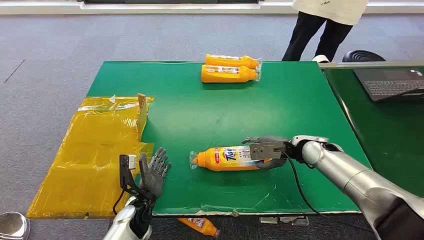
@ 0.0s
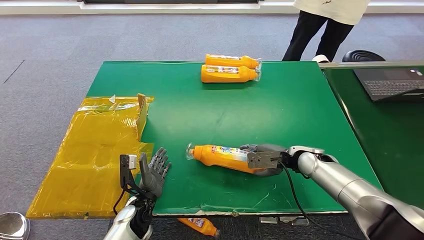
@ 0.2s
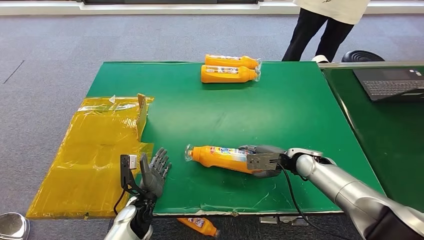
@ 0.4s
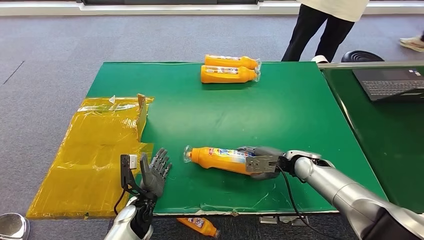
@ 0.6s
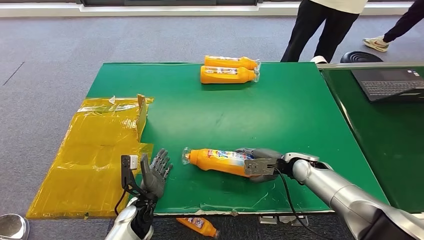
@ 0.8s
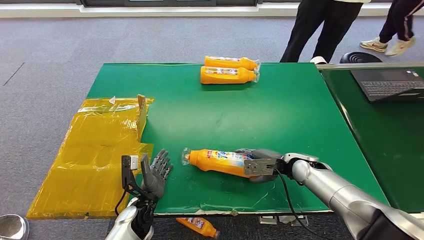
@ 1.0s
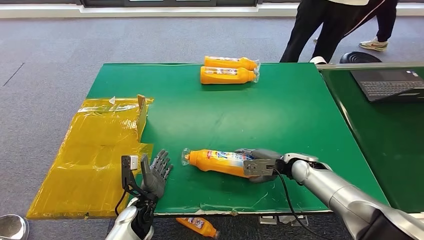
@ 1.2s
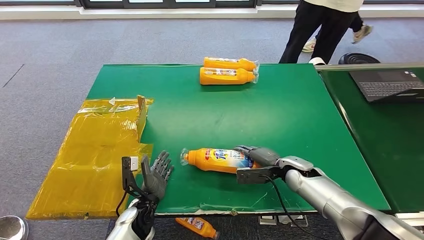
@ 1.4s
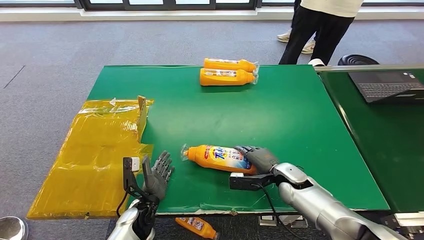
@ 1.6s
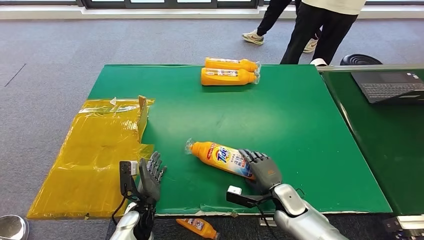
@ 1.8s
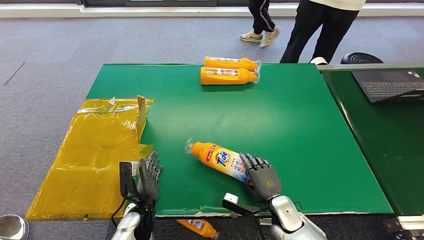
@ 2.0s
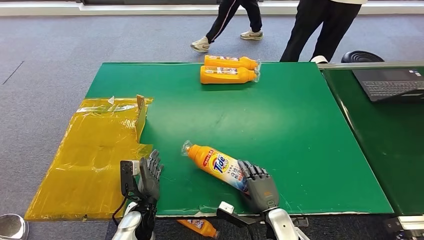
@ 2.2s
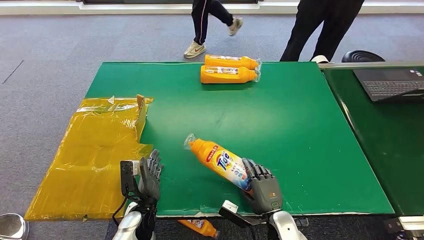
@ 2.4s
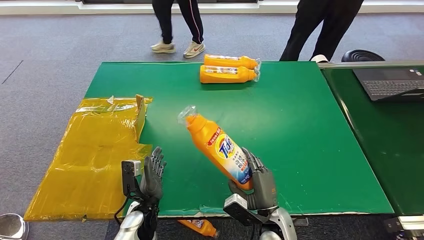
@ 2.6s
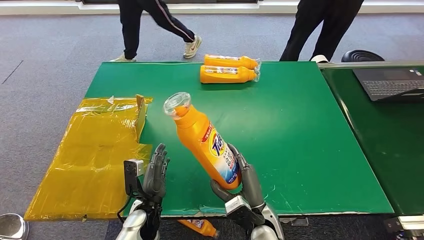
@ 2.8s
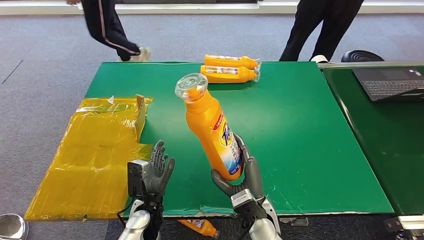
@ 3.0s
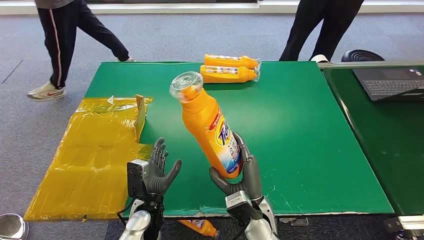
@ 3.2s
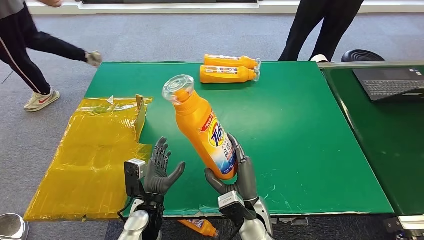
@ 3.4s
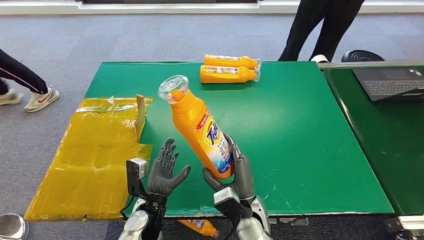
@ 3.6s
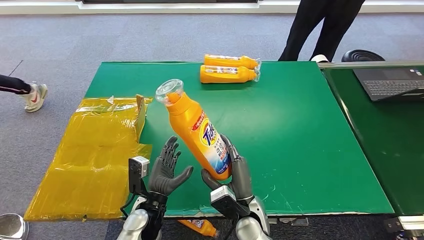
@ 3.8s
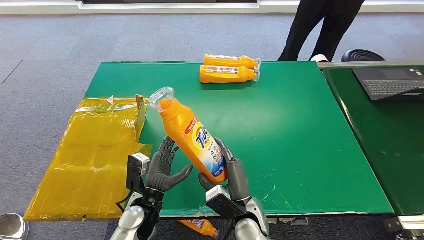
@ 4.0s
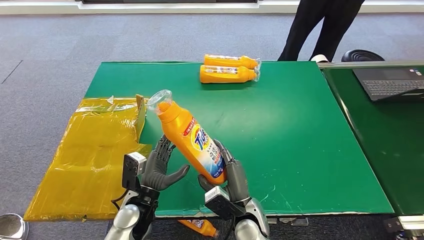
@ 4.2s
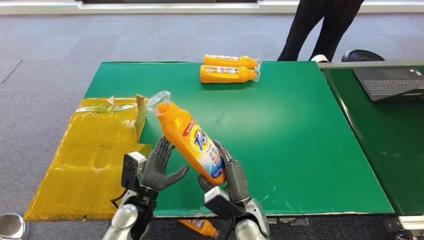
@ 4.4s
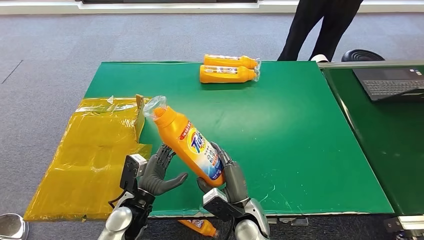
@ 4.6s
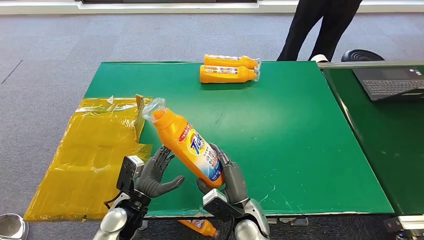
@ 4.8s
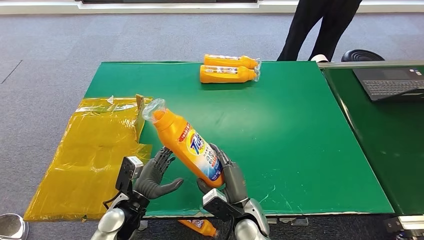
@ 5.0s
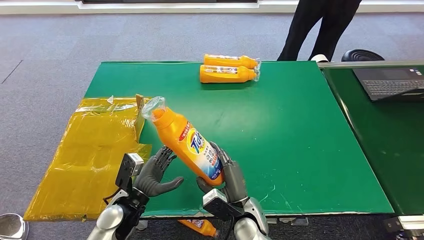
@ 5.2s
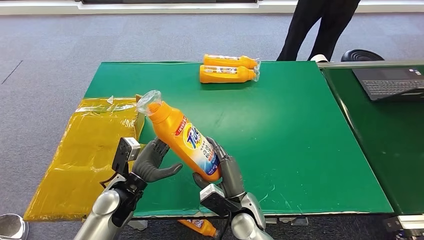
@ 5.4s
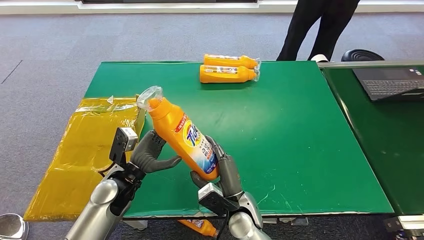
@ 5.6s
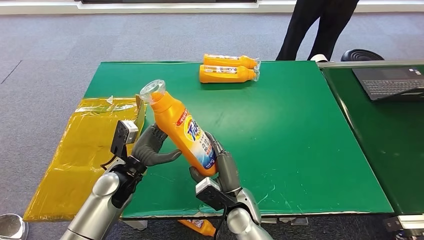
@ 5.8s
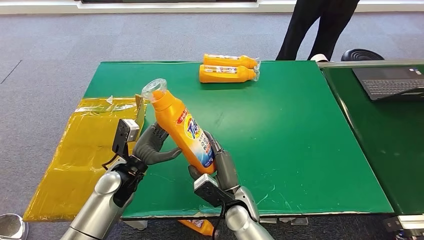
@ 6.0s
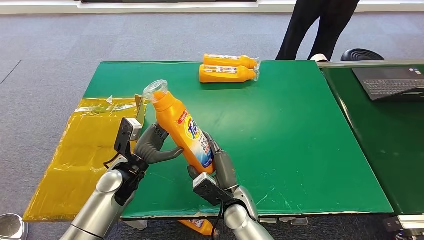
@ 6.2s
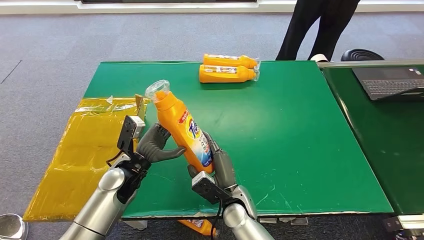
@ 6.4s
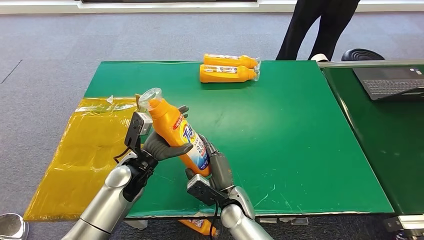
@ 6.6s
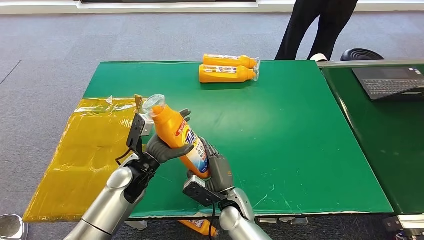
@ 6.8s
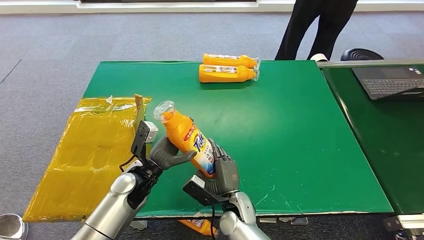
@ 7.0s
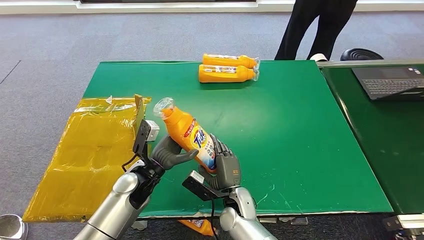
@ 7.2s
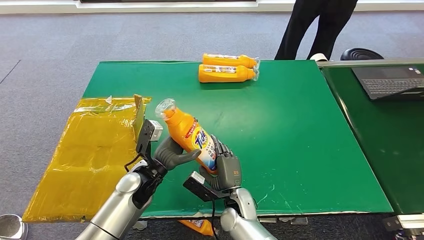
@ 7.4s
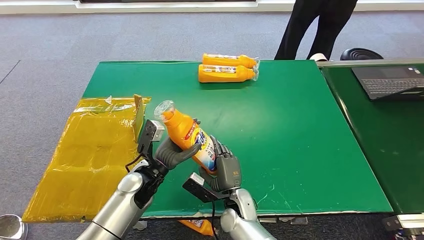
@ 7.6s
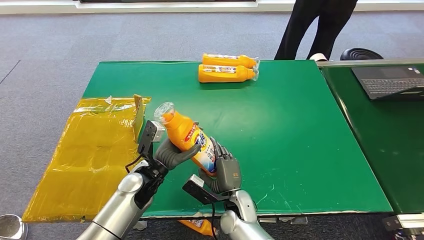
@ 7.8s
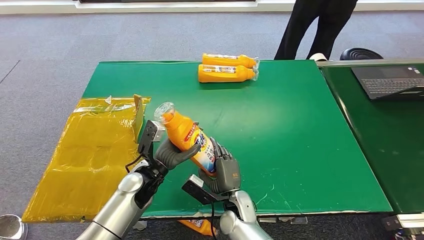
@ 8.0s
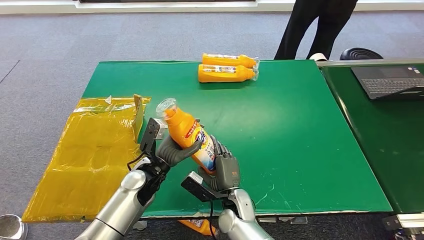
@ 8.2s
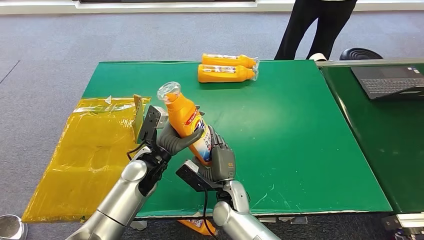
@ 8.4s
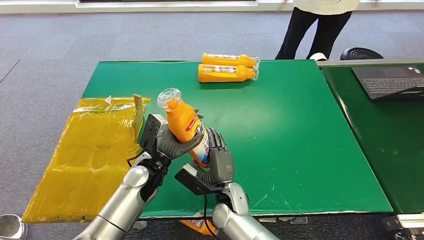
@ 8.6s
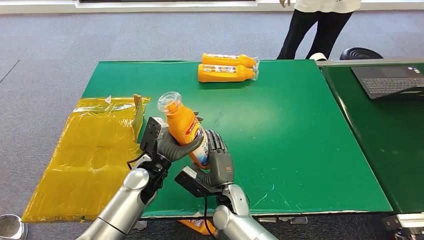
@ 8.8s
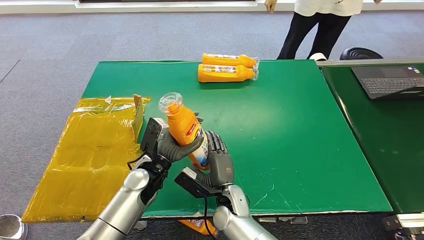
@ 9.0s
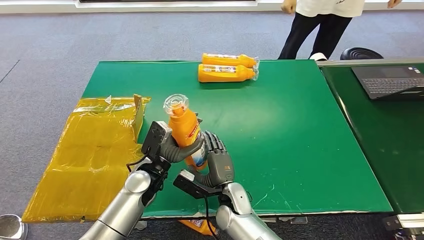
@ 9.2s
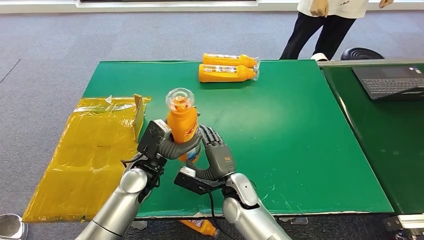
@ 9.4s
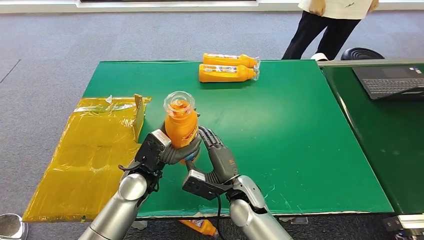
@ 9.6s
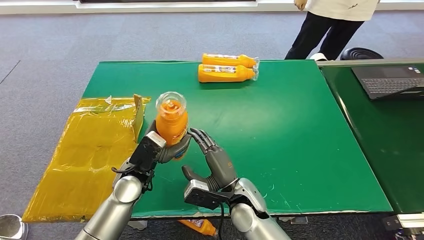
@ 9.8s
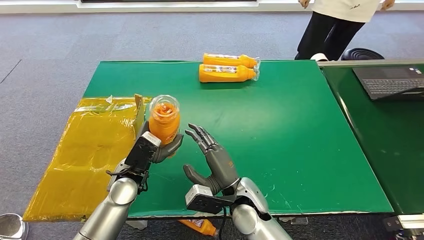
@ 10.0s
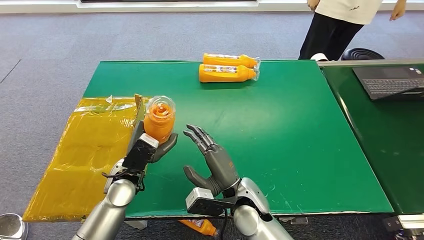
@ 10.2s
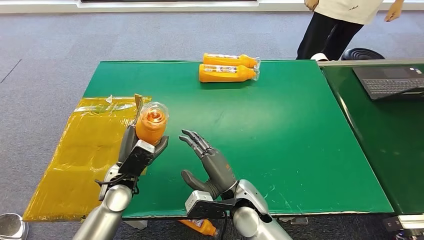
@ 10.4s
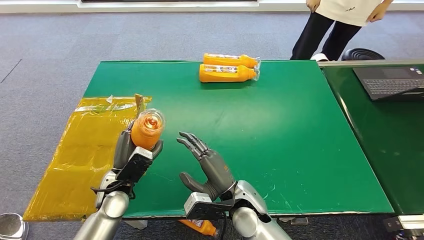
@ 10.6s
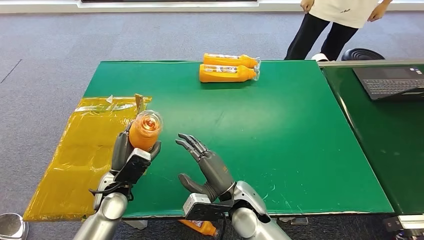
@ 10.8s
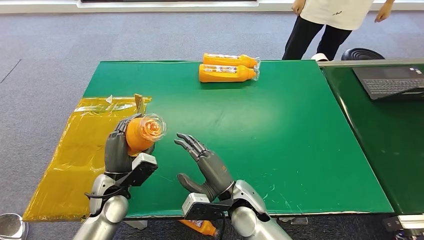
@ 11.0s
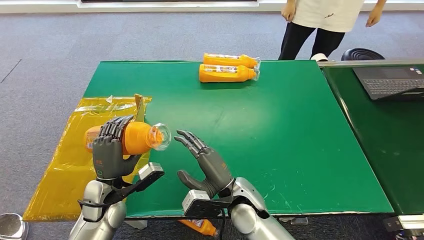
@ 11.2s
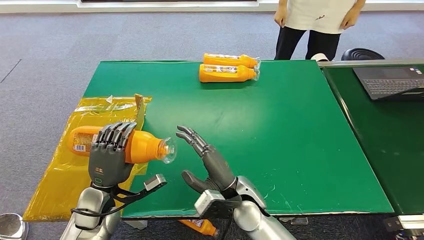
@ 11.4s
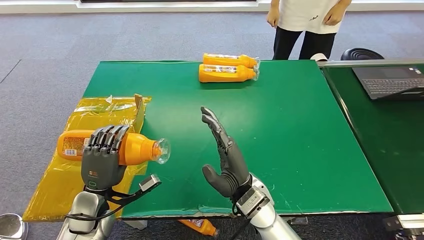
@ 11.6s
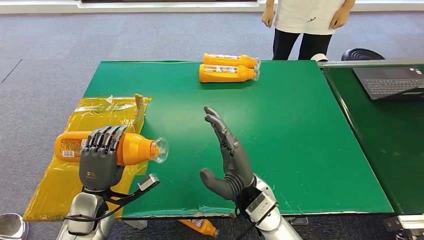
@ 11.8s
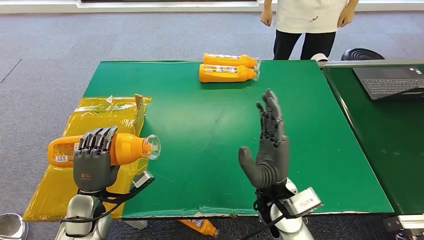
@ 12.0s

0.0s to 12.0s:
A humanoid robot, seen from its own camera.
Step, 0.0s to 3.0s: Pick up the bottle from the table.
Step, 3.4s to 12.0s: Turn the bottle to the front side.
3.0s to 4.4s: The hands make only small movements.
4.4s to 6.0s: The left hand travels forward by about 5 cm.
6.0s to 7.6s: The left hand heads to the right, covering about 5 cm.
7.6s to 9.0s: There are only small adjustments of the hands.
9.0s to 10.4s: The right hand shifts about 10 cm upward. The left hand goes approximately 10 cm to the left.

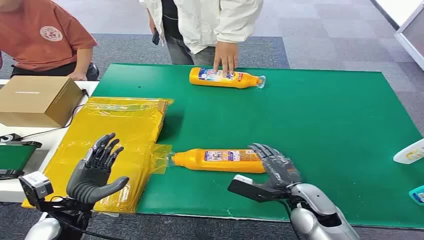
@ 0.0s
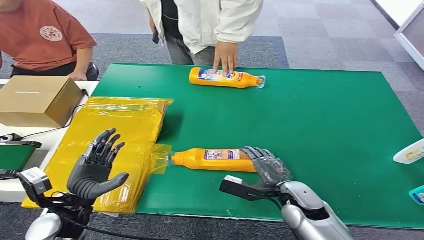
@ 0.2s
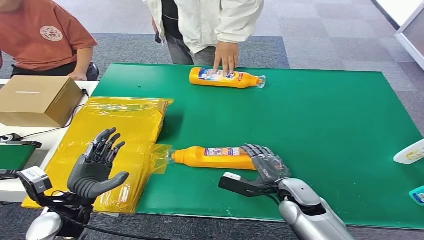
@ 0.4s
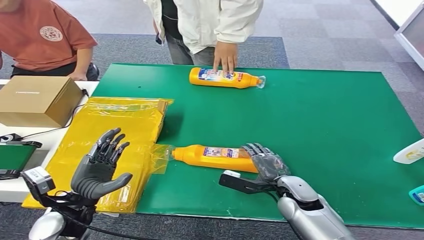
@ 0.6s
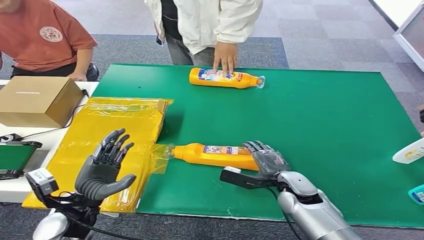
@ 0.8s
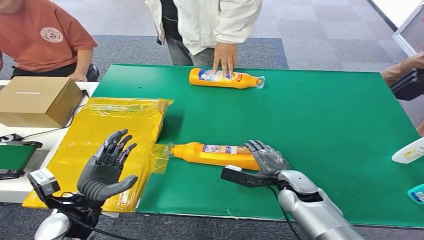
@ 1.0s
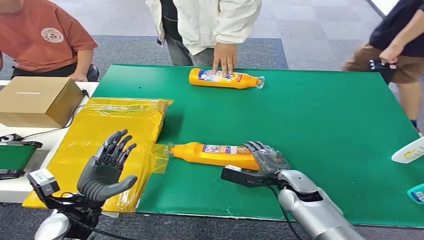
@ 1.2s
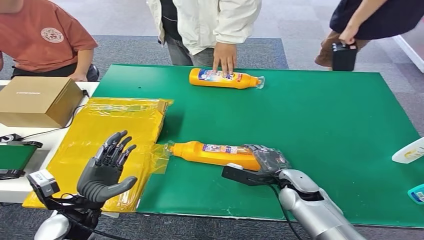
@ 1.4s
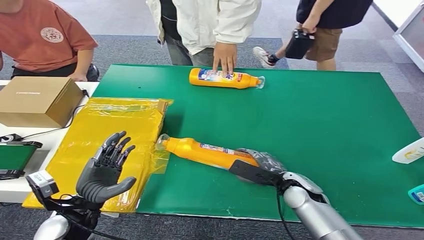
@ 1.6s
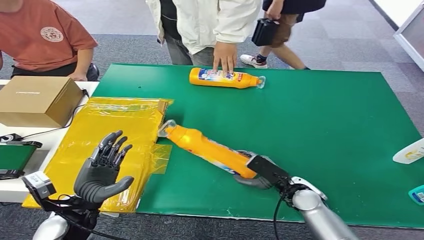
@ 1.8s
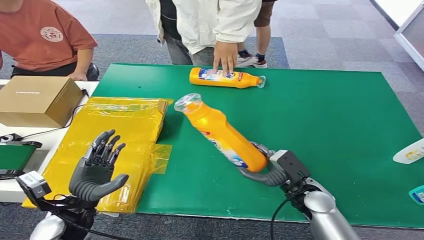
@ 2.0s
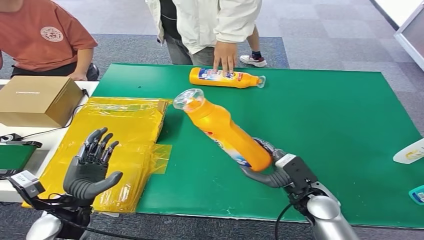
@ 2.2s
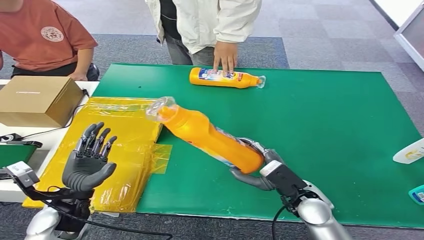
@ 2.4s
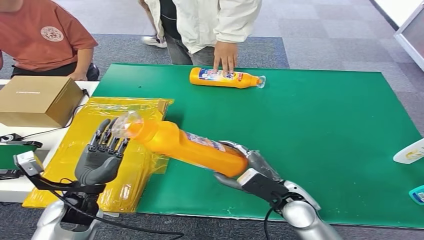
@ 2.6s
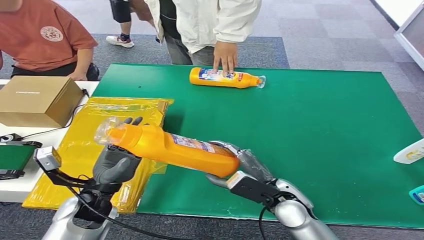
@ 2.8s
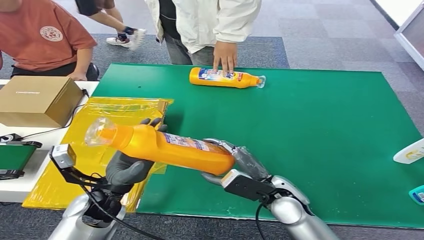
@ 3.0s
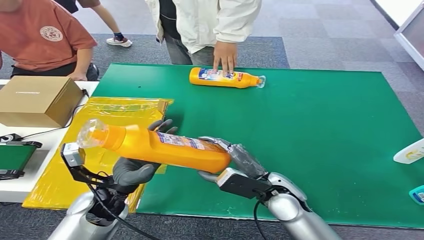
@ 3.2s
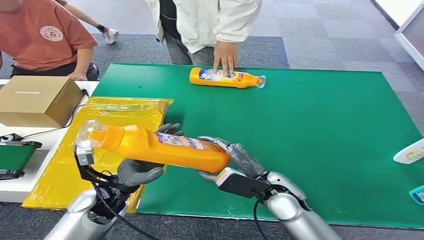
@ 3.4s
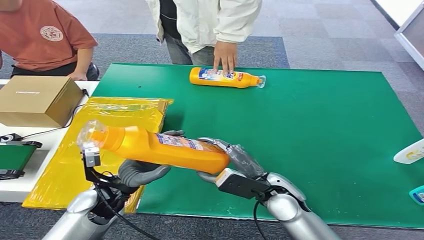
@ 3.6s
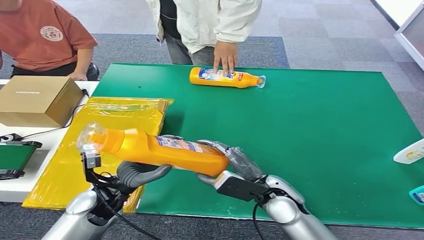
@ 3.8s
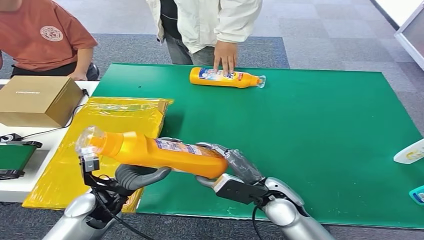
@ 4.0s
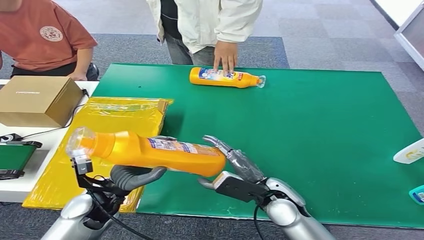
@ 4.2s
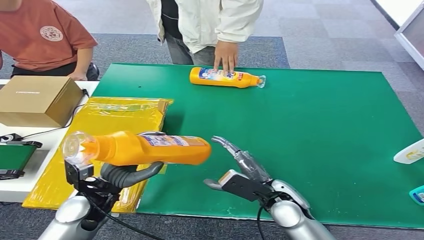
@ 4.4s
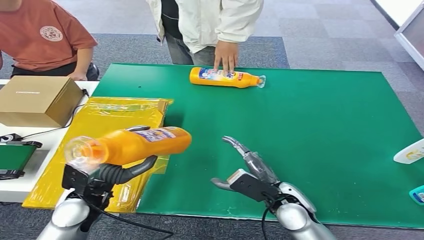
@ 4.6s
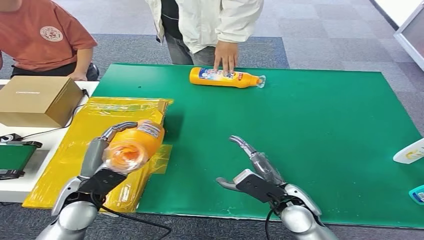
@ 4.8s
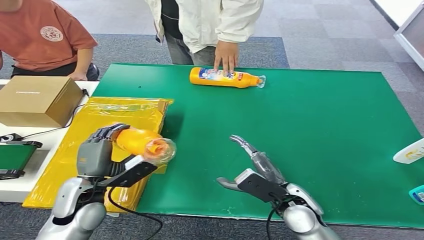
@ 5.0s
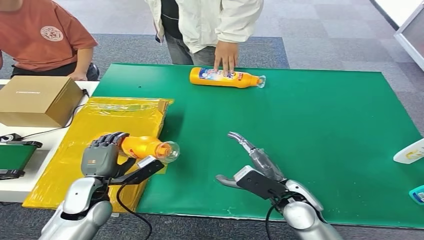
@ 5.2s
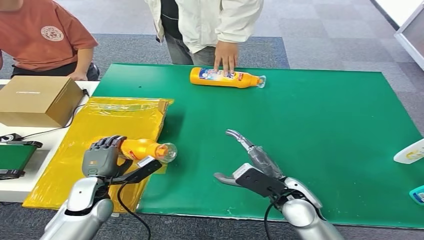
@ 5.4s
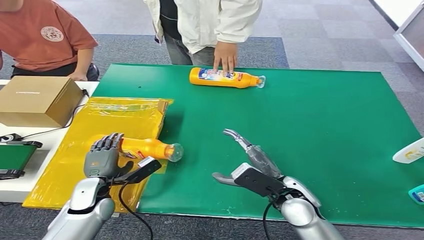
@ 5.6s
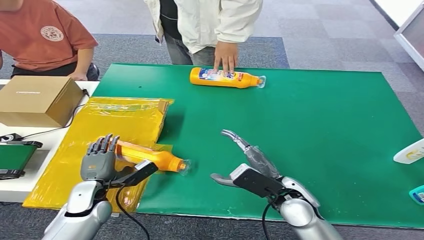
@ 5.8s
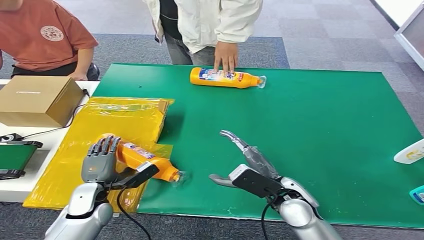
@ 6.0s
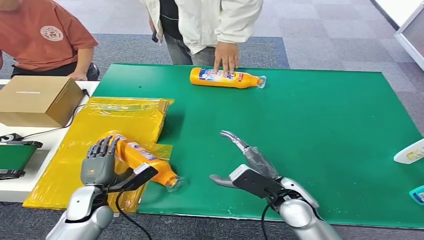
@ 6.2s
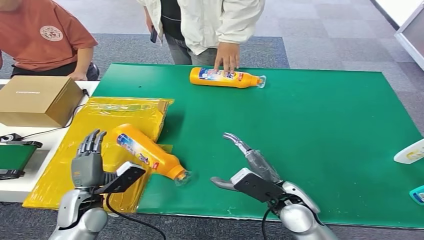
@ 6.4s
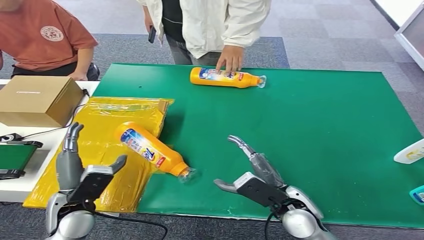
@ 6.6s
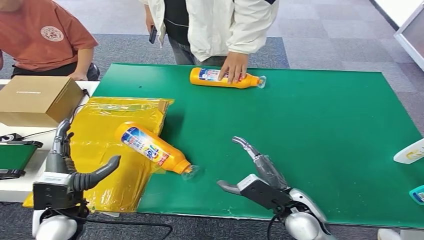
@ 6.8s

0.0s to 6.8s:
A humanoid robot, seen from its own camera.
Step, 0.0s to 2.0s: Pick up the bottle from the table.
Step, 2.2s to 6.8s: Turn the bottle to the front side.
2.8s to 4.0s: The hands stay close to where they were, moving slightly.
4.0s to 5.4s: The left hand changes place by approximately 5 cm.
5.4s to 6.8s: The left hand shifts roughly 10 cm upward and backward.
